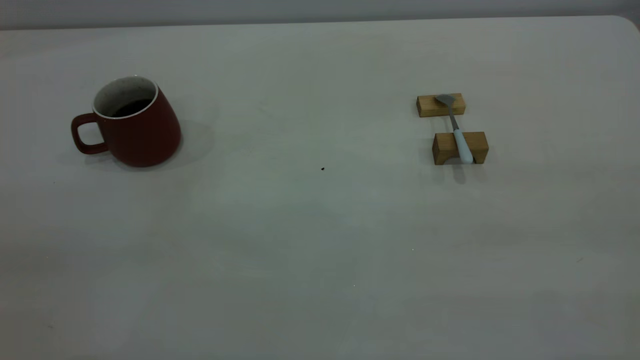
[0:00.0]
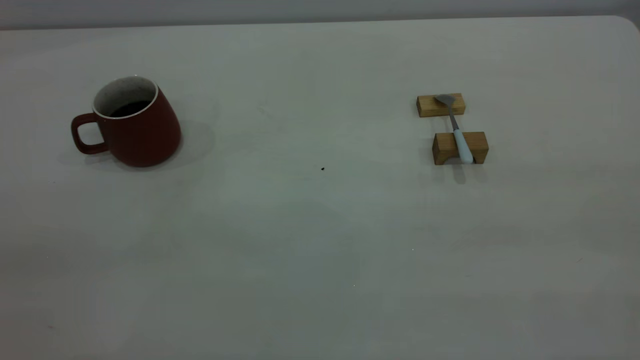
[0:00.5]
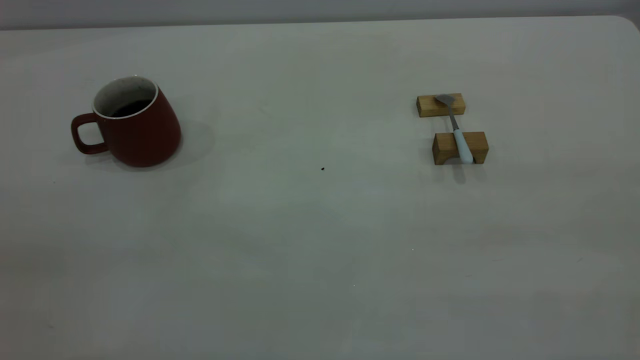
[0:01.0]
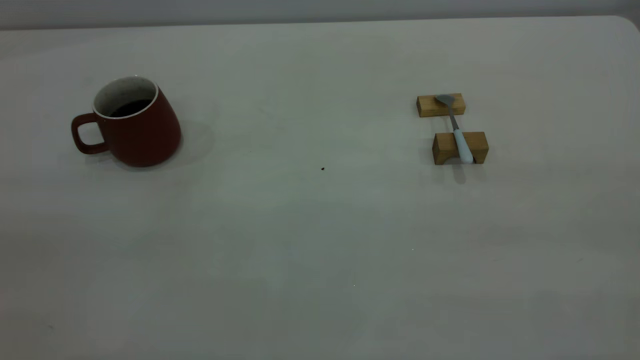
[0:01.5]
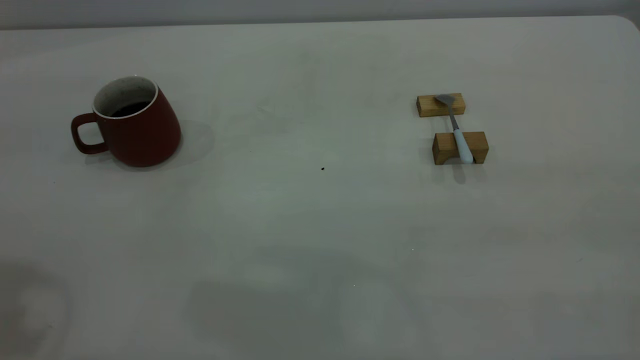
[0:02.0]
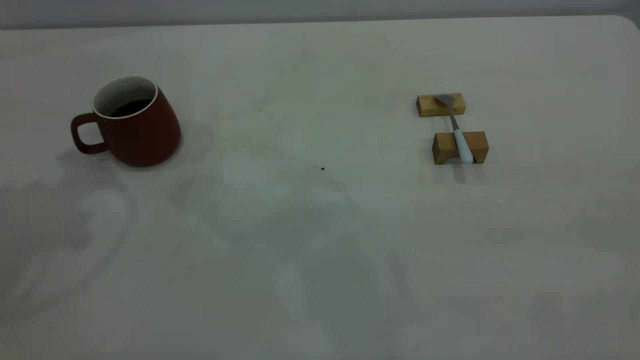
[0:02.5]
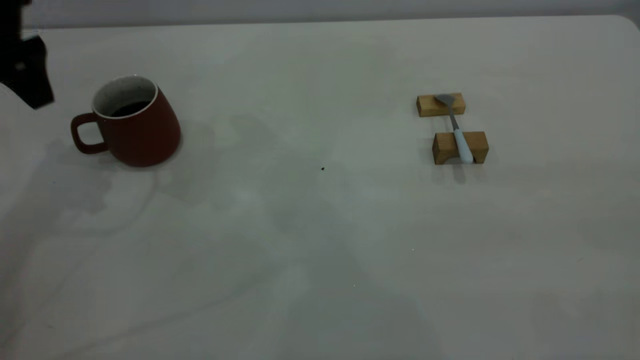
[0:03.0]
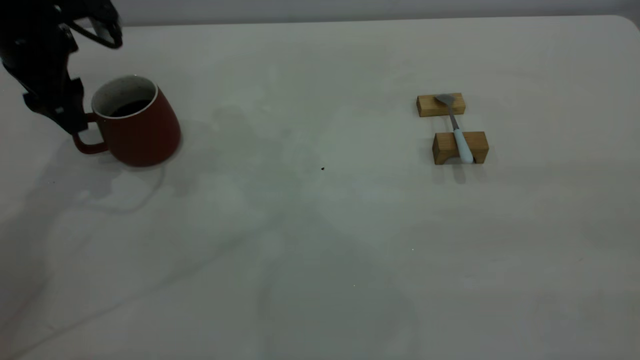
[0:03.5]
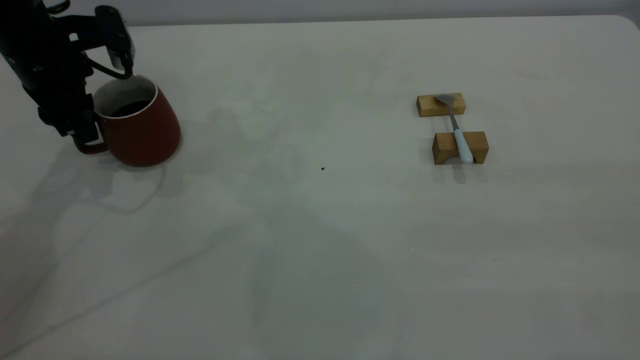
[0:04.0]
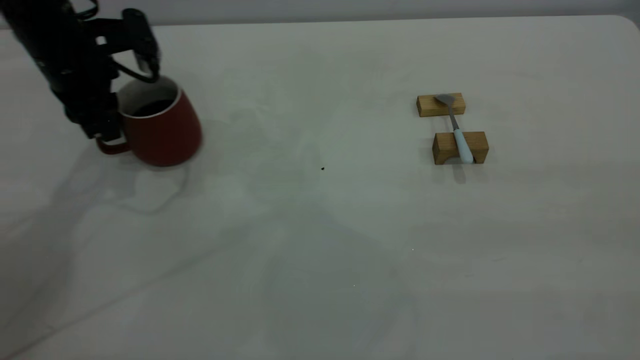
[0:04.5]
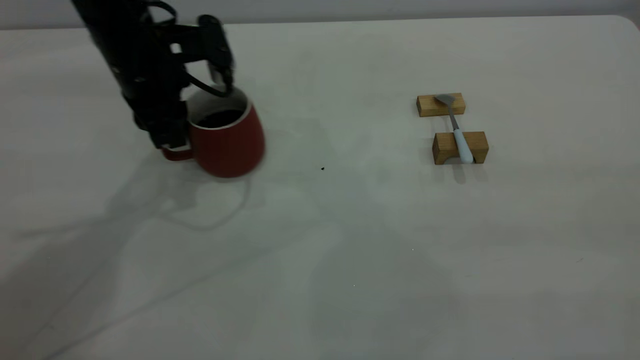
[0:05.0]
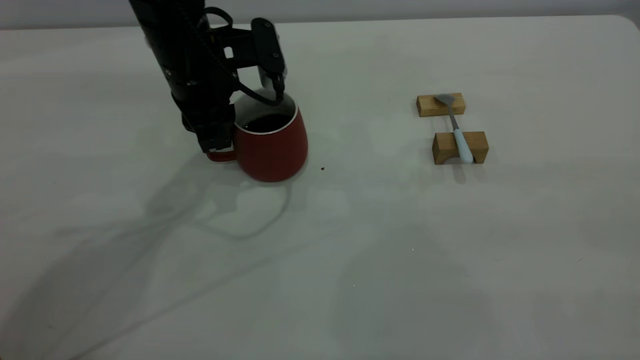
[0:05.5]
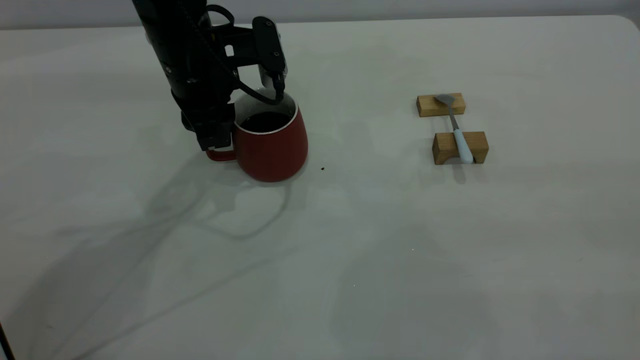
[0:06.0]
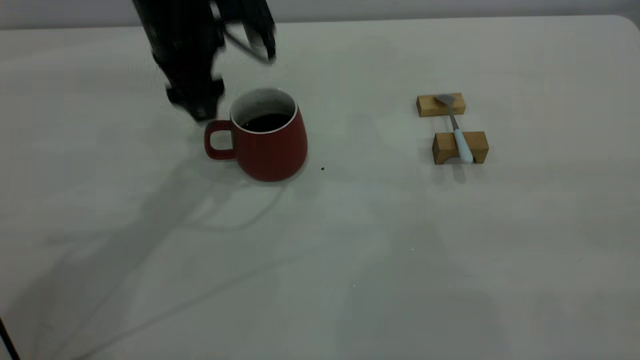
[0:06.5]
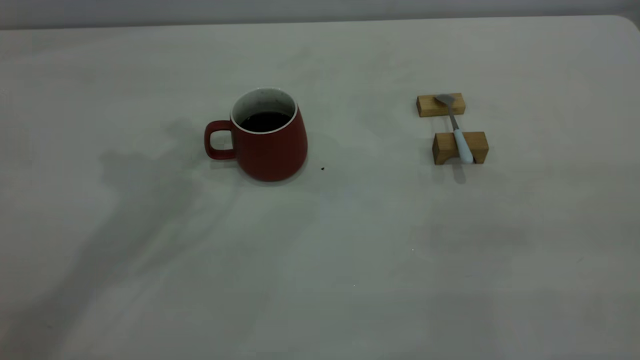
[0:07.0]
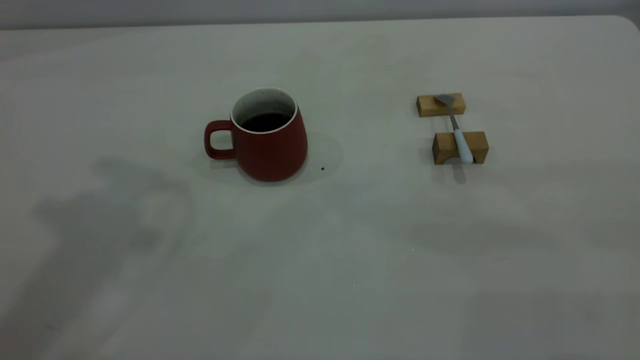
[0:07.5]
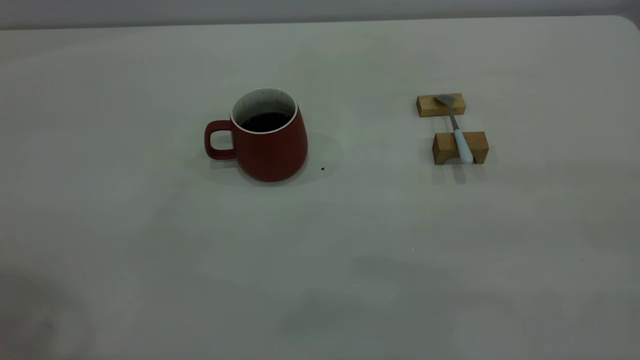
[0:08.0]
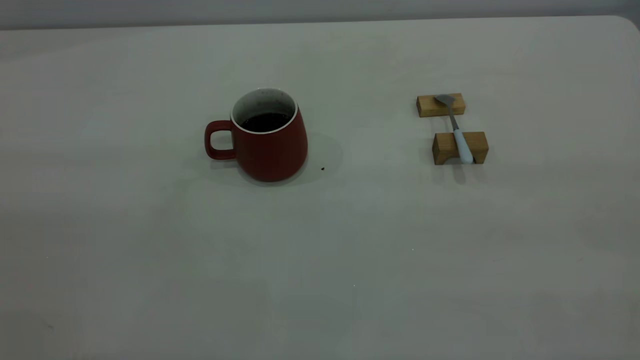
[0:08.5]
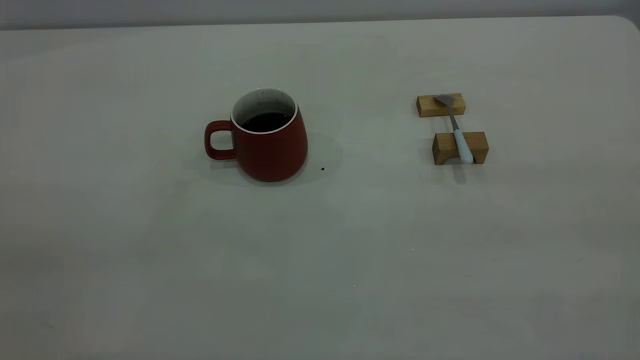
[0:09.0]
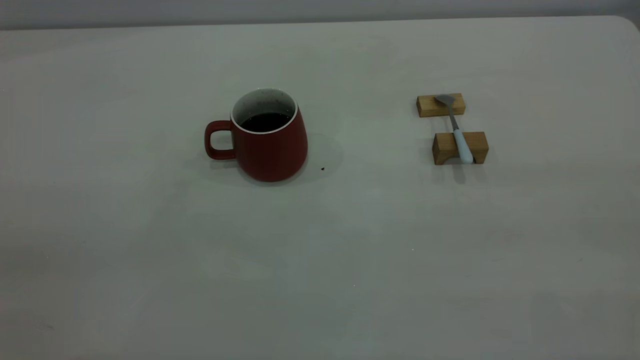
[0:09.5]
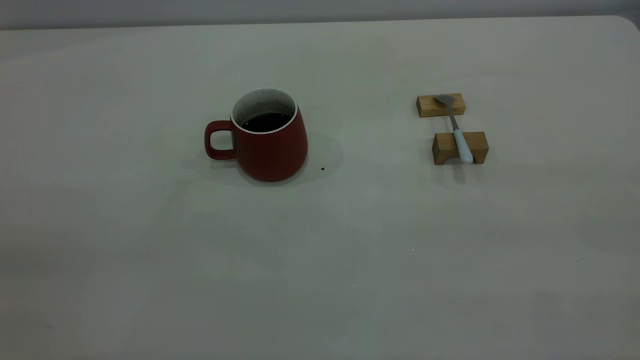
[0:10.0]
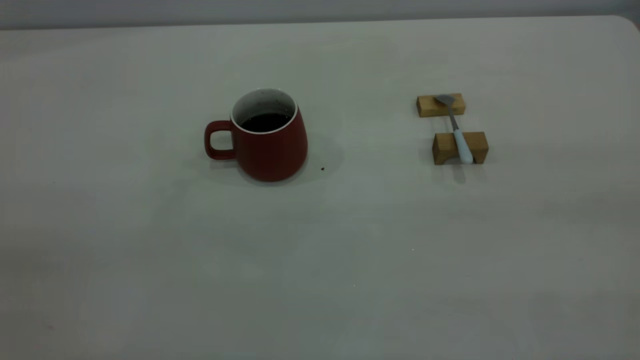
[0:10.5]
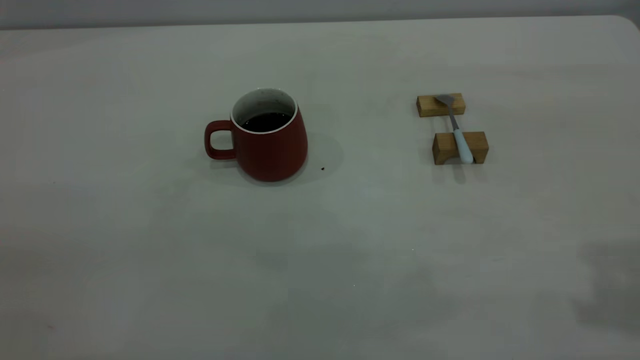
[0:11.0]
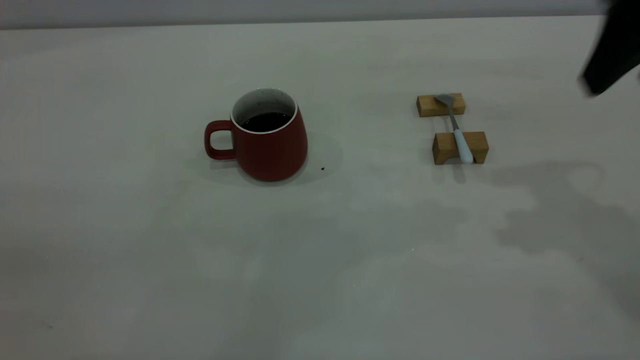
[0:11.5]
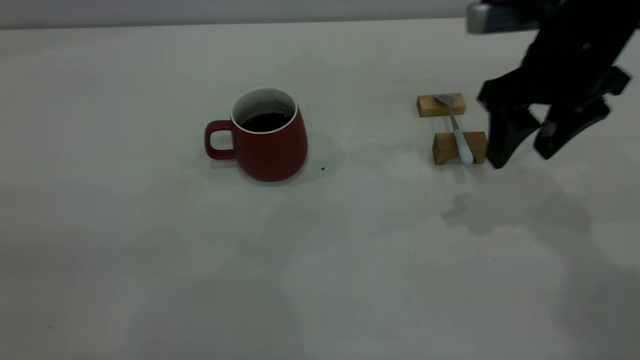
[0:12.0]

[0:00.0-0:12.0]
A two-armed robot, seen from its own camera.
Step, 0:00.0 to 0:06.5: Move the cup with coffee to the center of view.
0:02.0 to 0:04.0: The left gripper shifts approximately 35 cm downward and forward, and opens, then closes once more.
0:04.0 to 0:06.0: The left gripper moves to the right, roughly 15 cm.
0:06.0 to 0:08.0: The left gripper is displaced upward, backward and to the left by about 40 cm, and opens, then closes again.
0:10.0 to 0:12.0: The right gripper heads forward and downward, covering approximately 40 cm, and opens its fingers.

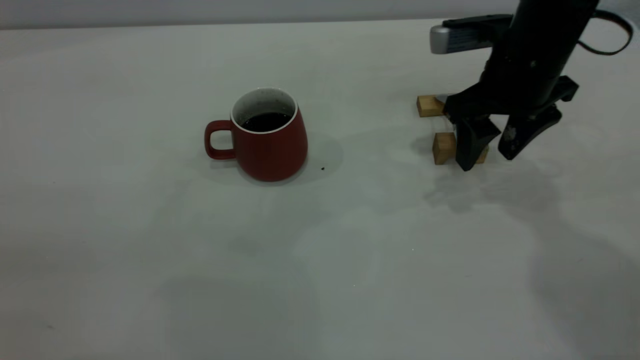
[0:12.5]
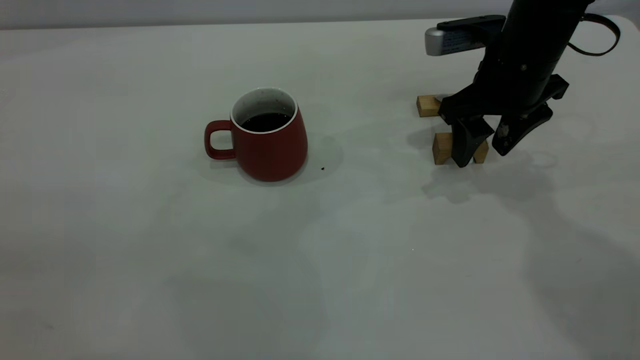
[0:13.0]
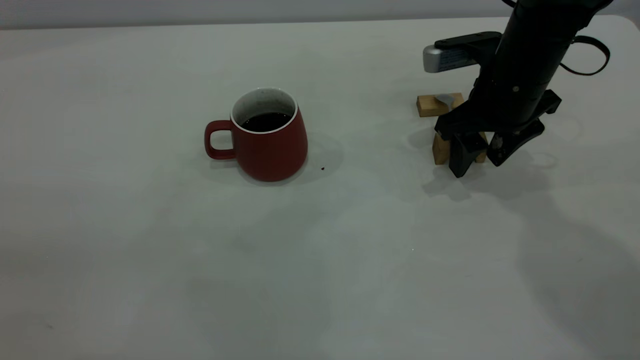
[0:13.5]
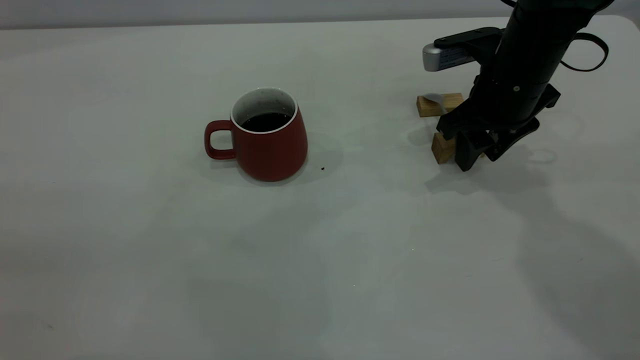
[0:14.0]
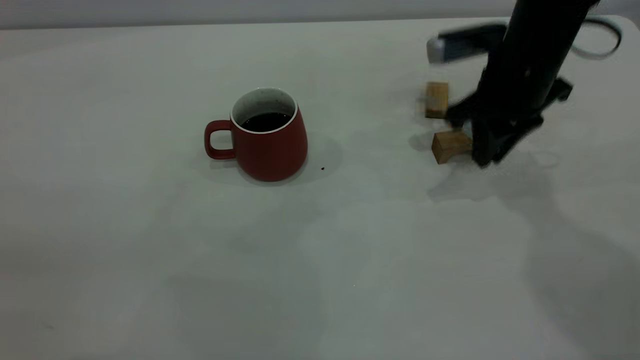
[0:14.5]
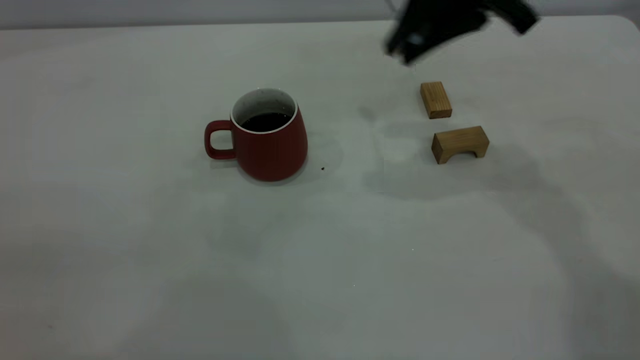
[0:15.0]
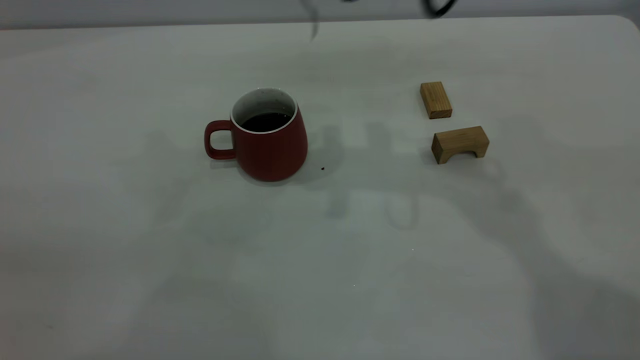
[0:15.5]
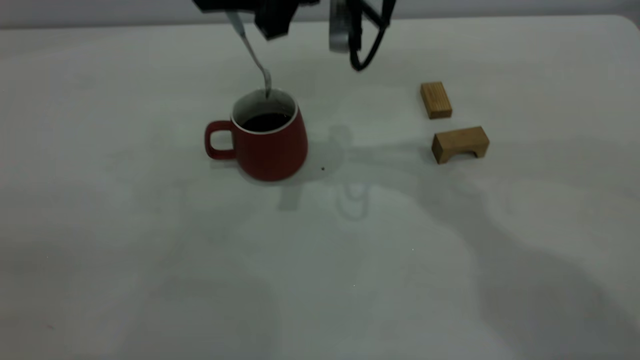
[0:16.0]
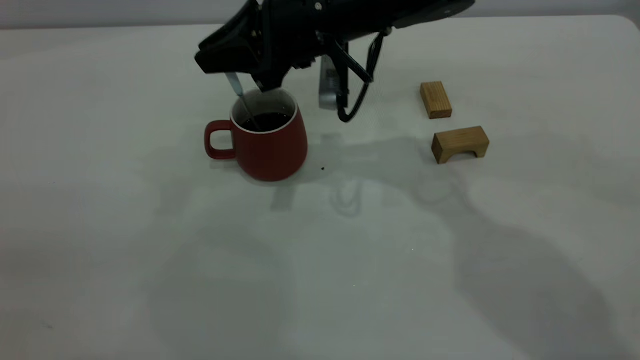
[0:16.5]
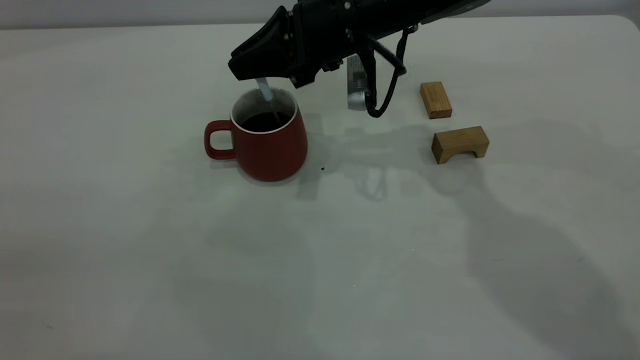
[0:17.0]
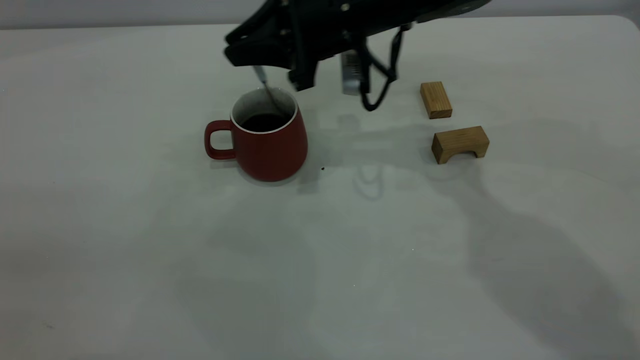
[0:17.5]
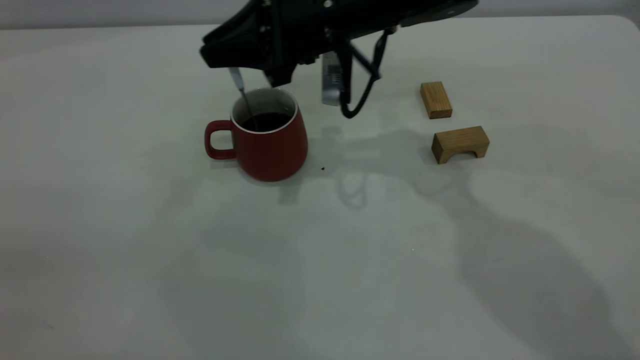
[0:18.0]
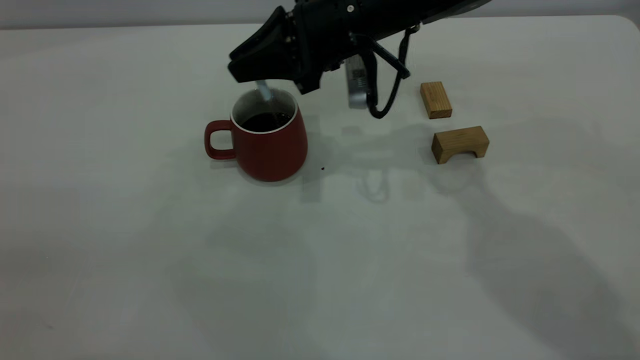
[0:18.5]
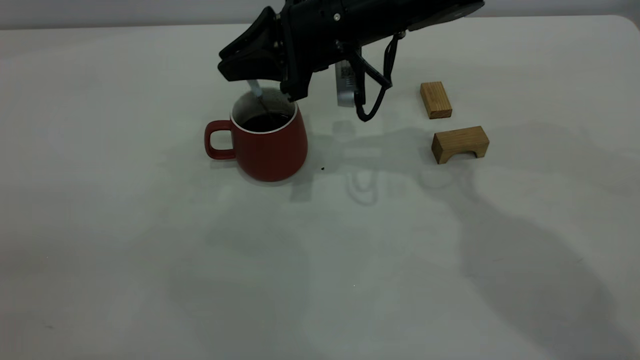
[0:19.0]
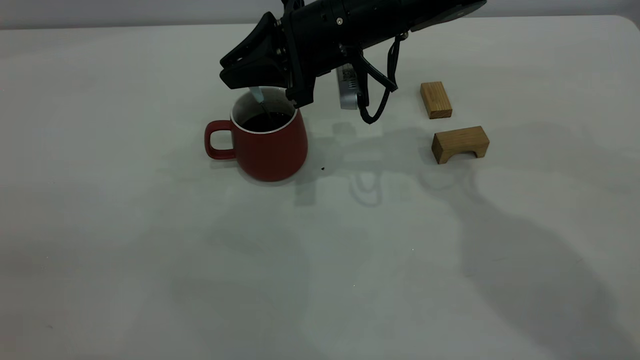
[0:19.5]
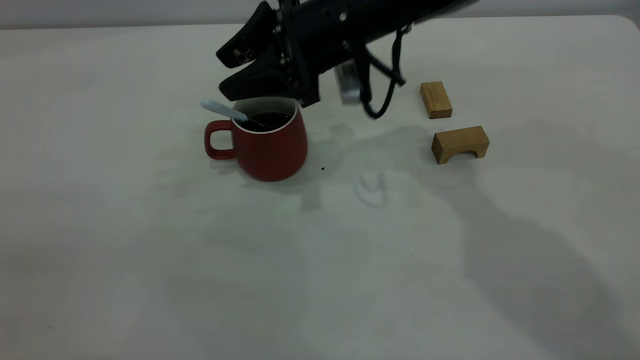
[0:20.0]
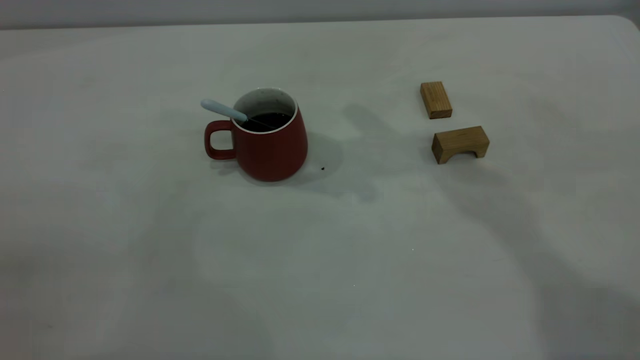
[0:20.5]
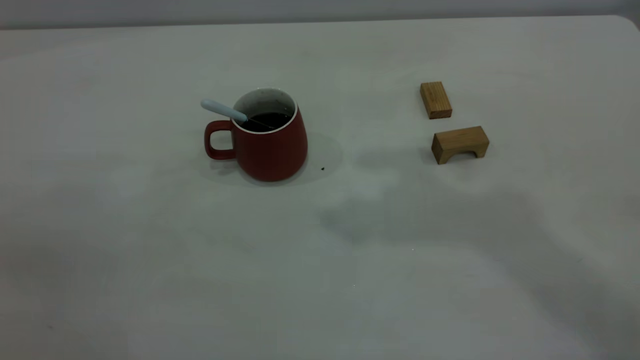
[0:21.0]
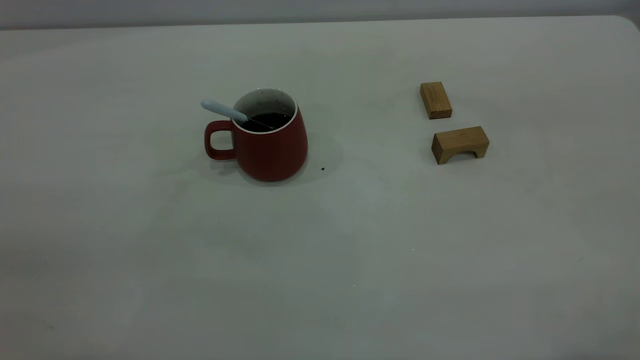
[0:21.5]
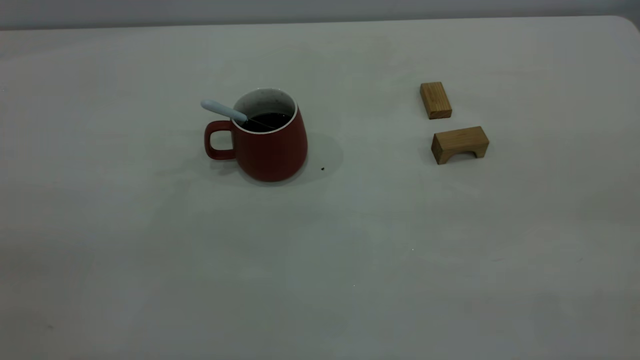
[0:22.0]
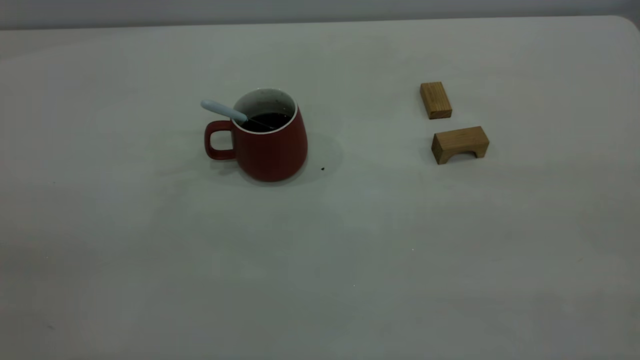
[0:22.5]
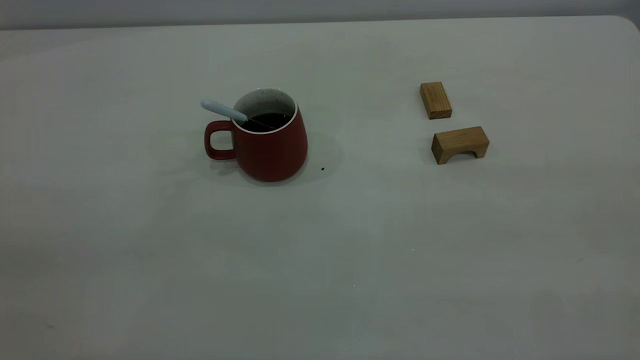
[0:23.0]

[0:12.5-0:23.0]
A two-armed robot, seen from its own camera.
Step, 0:12.5 to 0:14.5: Pick up the spoon.
Step, 0:15.0 to 0:20.0: Stir the coffee in the cup.
0:12.5 to 0:14.5: The right gripper closes up.
0:14.5 to 0:16.5: The right gripper moves to the left, roughly 20 cm.
0:16.5 to 0:19.0: The grippers make only small movements.
0:19.0 to 0:21.0: The right gripper goes approximately 35 cm upward, and opens.
